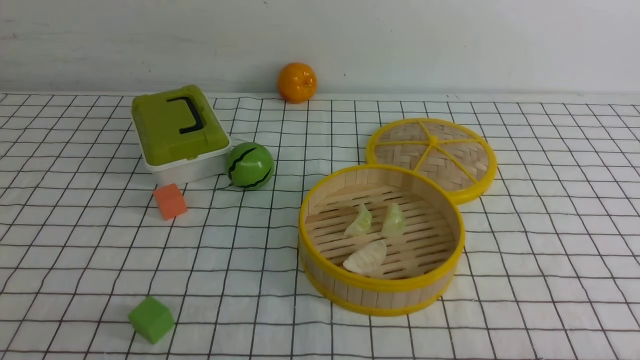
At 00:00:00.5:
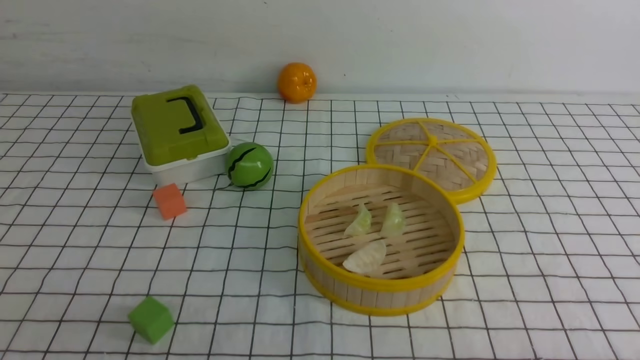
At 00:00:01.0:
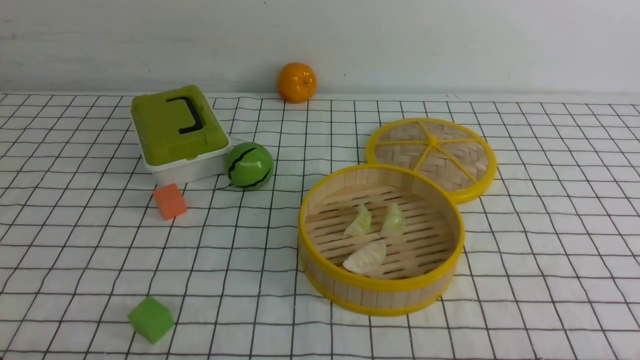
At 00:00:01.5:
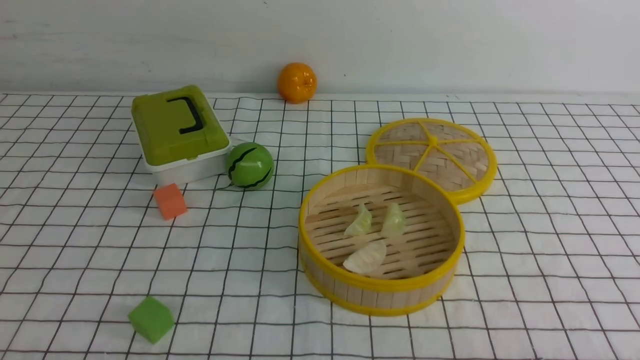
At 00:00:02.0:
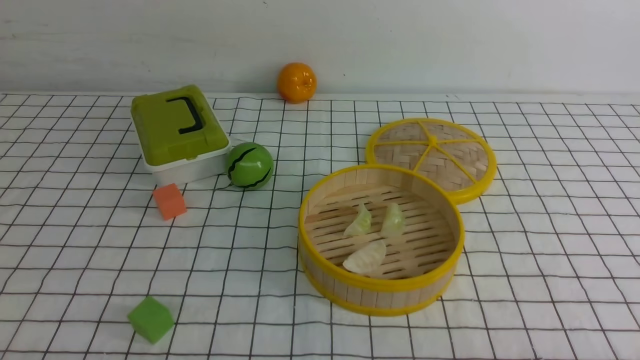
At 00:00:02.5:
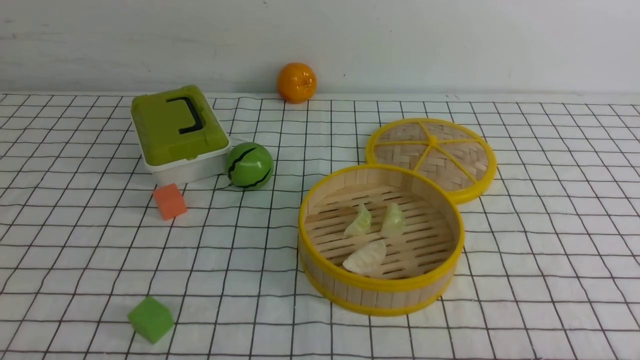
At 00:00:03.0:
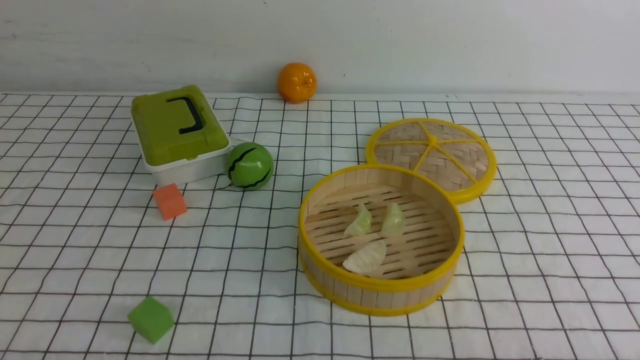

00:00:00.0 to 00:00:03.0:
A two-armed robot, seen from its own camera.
Task of the whole recording: put the dumplings into the steamer on the table with the white tablecloth.
00:00:01.5 to 00:00:03.0: Both grippers stay about where they are.
